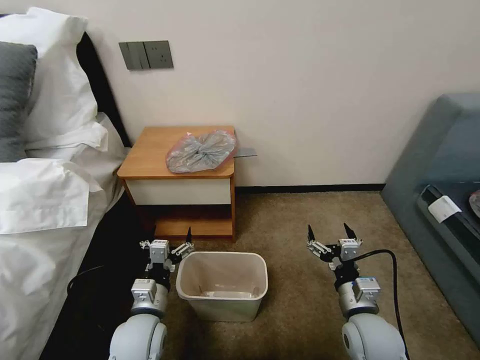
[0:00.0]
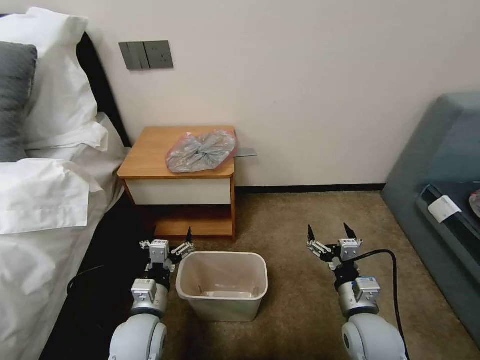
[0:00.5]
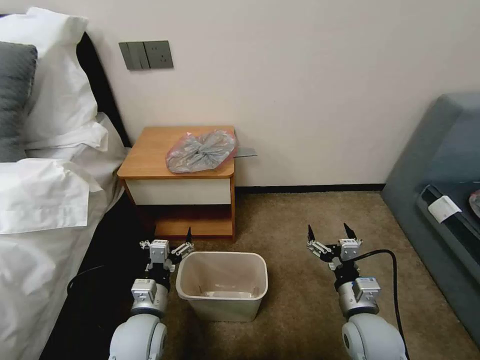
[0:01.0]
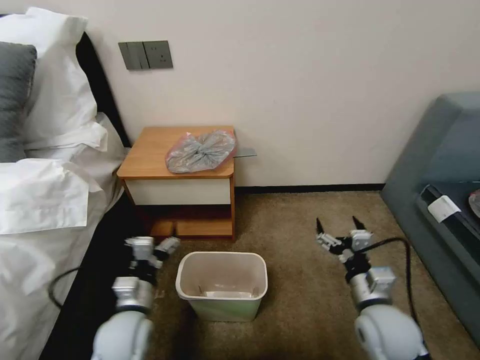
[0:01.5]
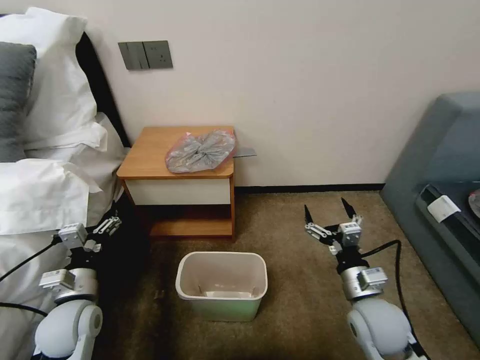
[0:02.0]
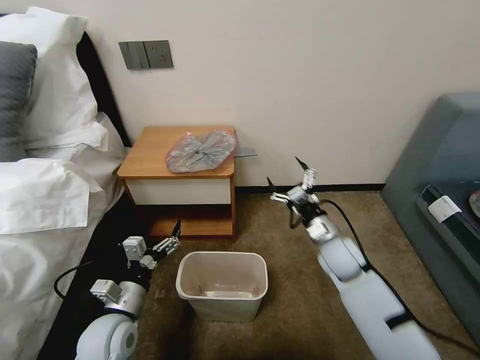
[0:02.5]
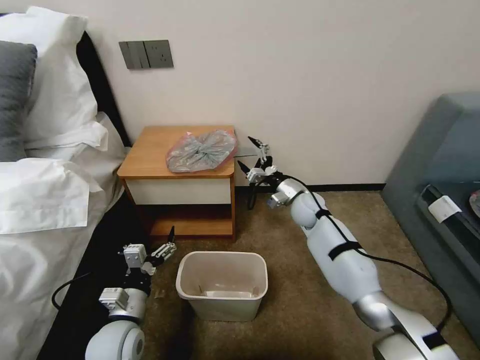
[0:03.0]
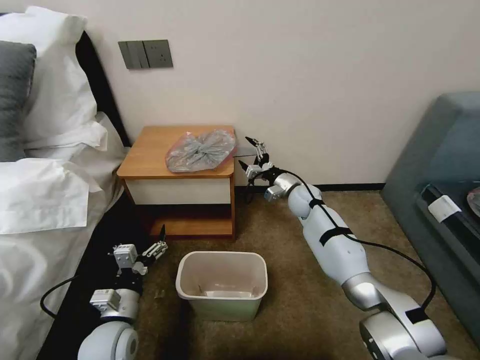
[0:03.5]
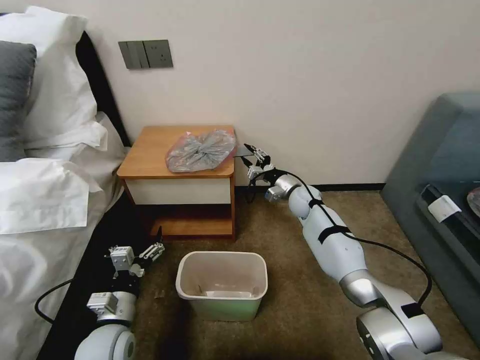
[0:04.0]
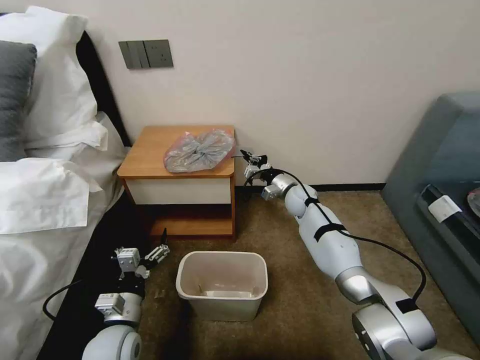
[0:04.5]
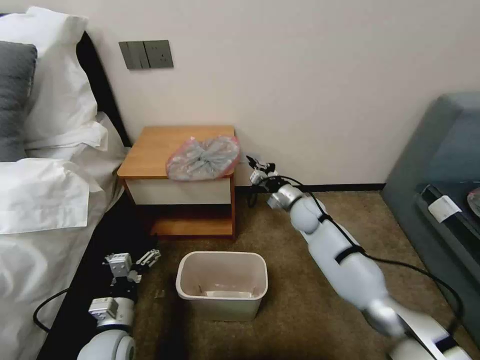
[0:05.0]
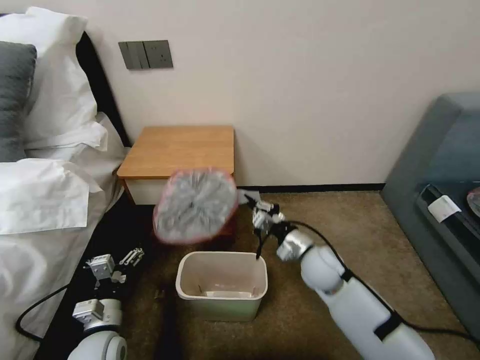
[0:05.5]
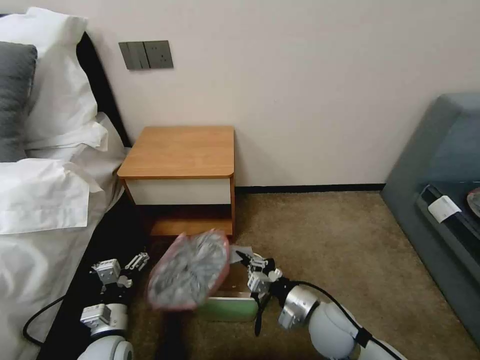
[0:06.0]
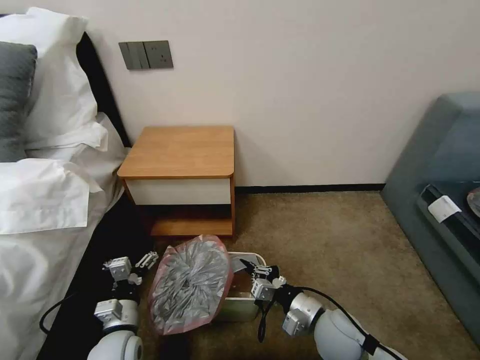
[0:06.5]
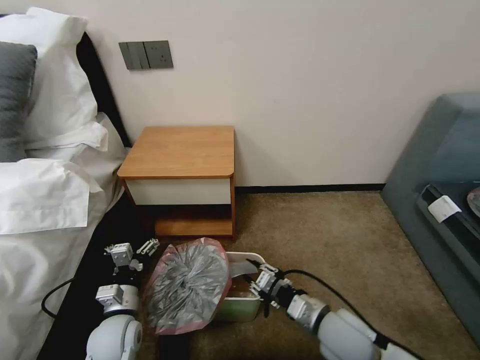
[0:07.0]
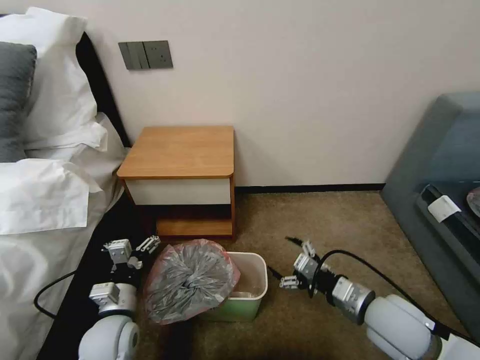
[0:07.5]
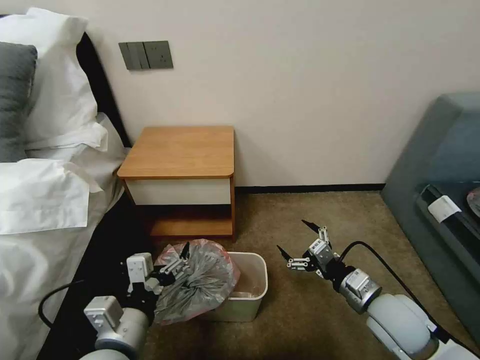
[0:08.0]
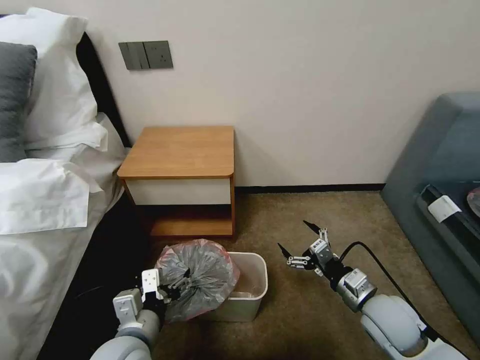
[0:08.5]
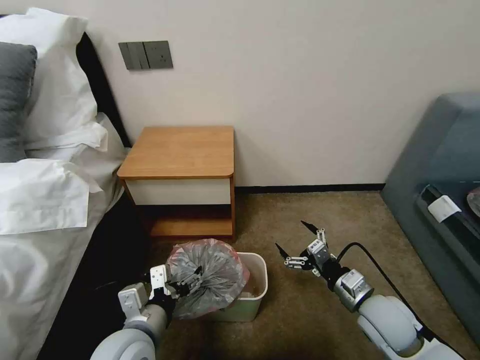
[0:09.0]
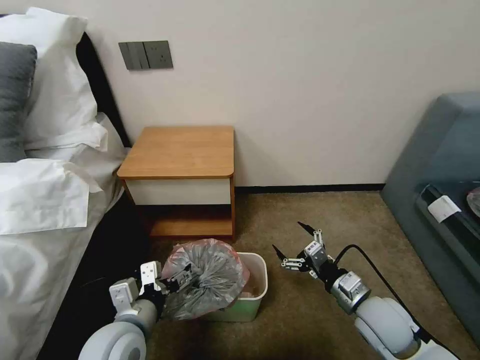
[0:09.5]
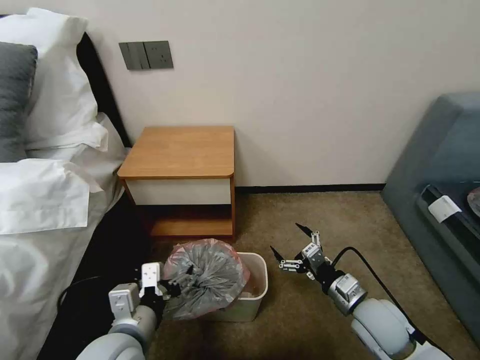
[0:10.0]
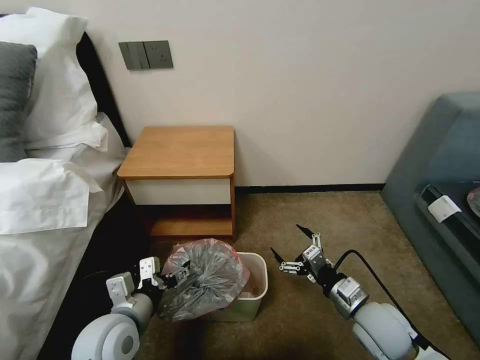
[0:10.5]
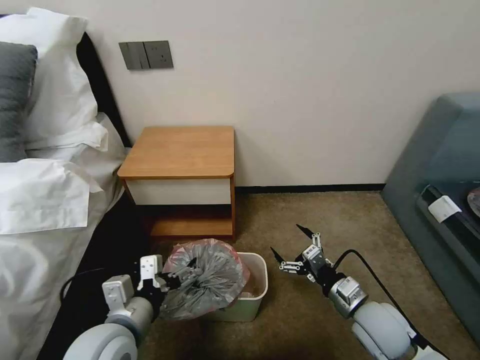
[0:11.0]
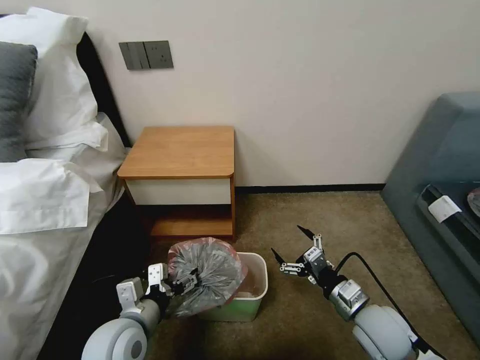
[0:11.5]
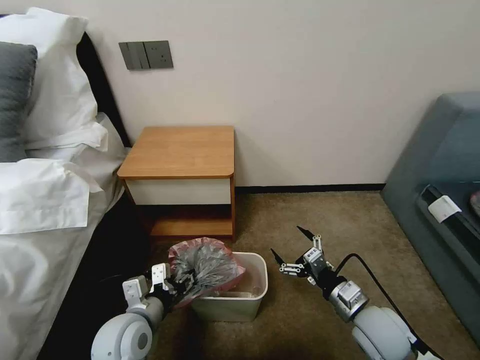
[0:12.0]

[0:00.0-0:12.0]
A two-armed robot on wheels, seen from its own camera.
Task of the whole recording: Pick up the garbage bag from the table and place it over the trash can.
0:02.0 to 0:04.0: The left gripper is displaced to the right by about 5 cm. The right gripper shifts some 35 cm forward, and closes up.
0:04.0 to 0:06.0: The right gripper heads backward, covering approximately 35 cm, and closes up.
0:06.0 to 0:08.0: The right gripper goes roughly 10 cm to the right and upward, and opens. The left gripper goes approximately 15 cm upward and to the right.
0:10.0 to 0:12.0: The left gripper goes approximately 5 cm downward, and closes its fingers.

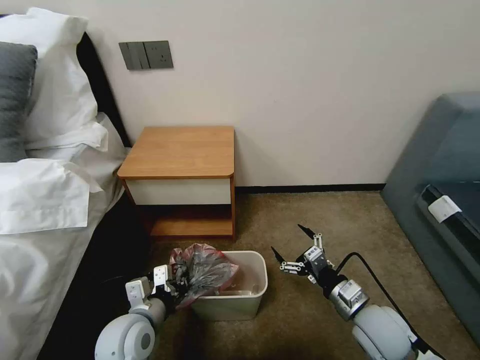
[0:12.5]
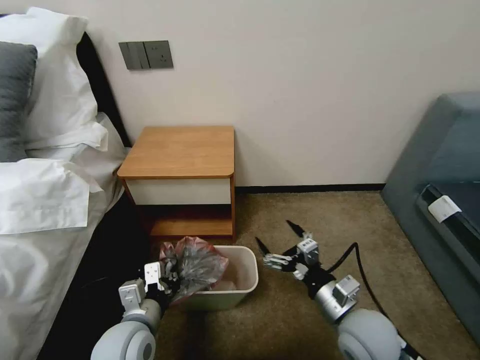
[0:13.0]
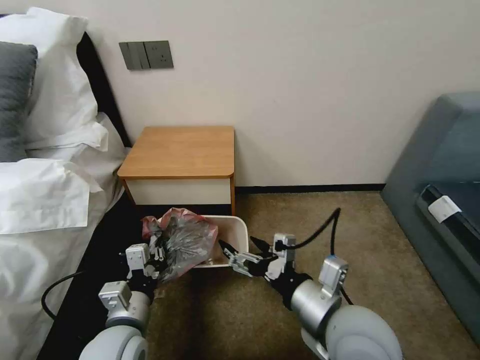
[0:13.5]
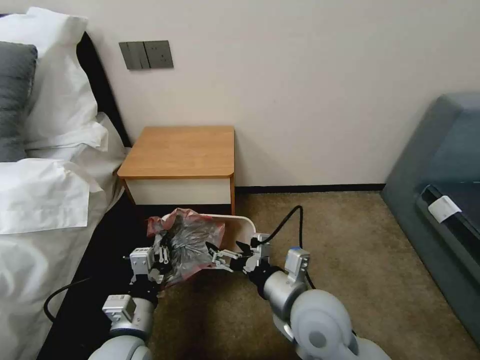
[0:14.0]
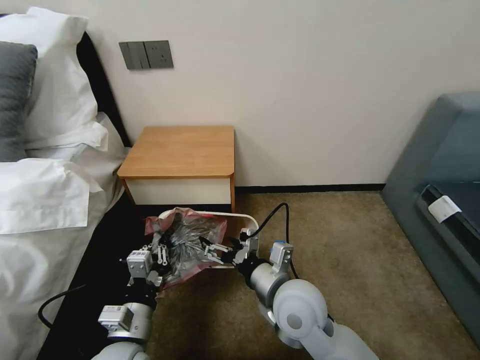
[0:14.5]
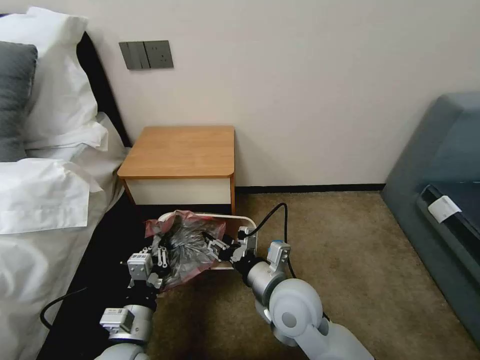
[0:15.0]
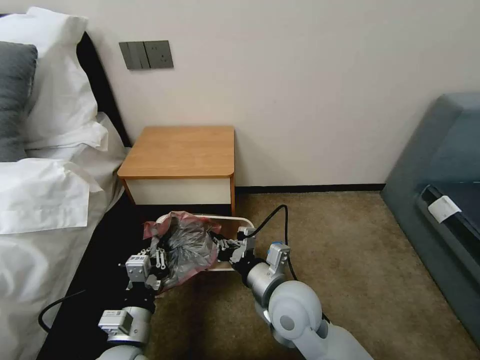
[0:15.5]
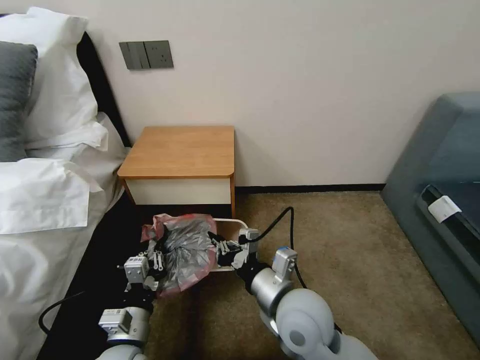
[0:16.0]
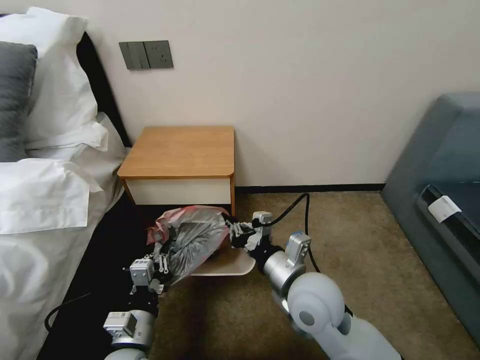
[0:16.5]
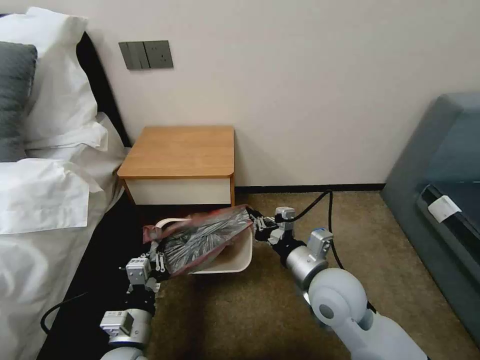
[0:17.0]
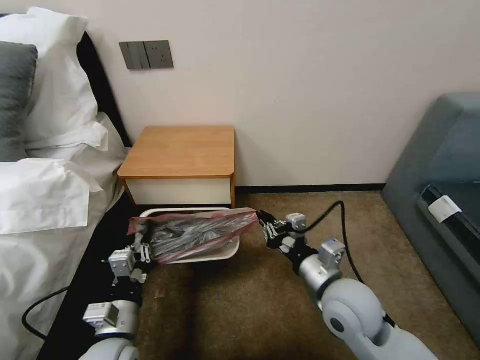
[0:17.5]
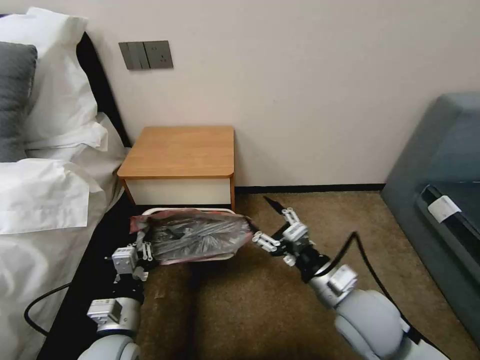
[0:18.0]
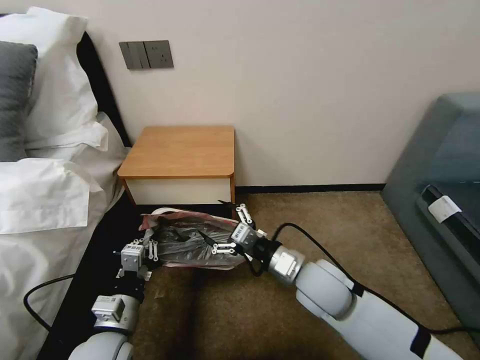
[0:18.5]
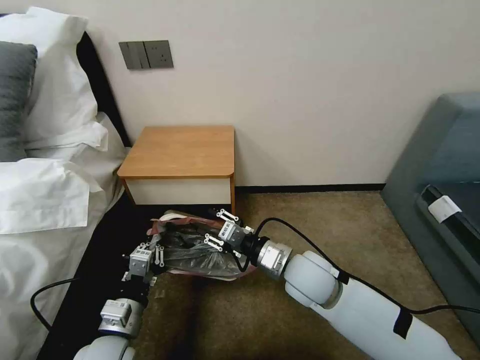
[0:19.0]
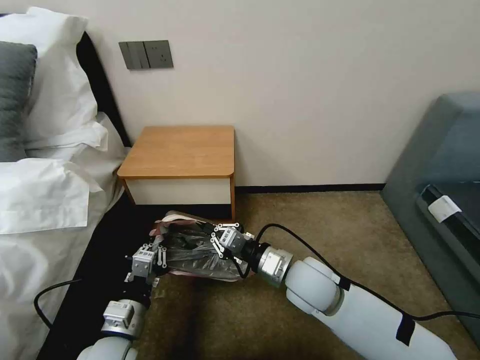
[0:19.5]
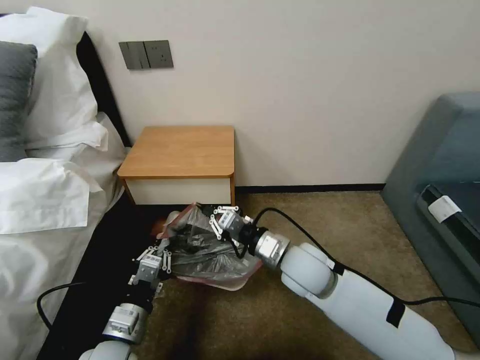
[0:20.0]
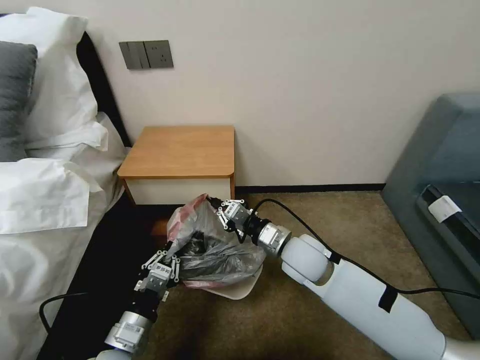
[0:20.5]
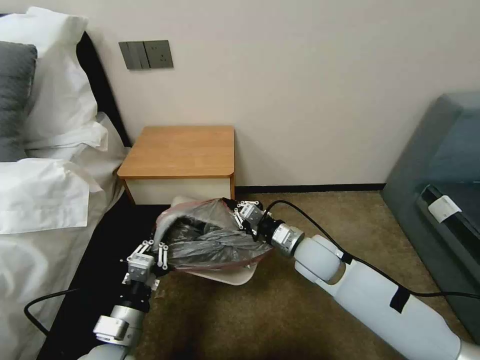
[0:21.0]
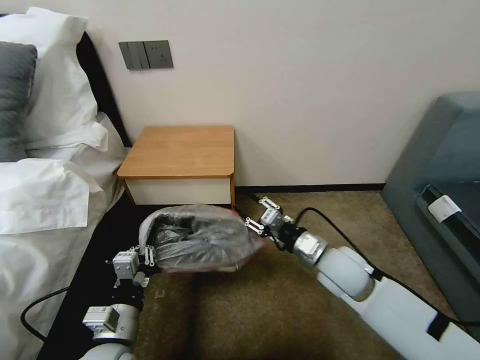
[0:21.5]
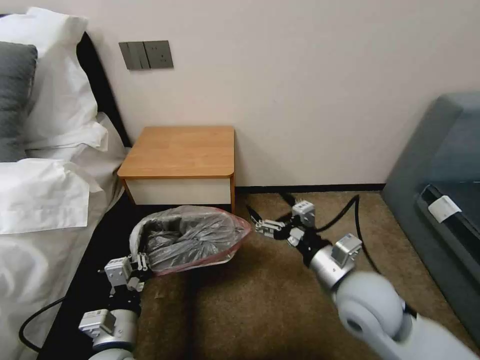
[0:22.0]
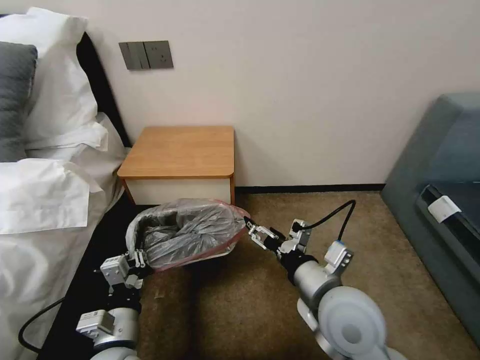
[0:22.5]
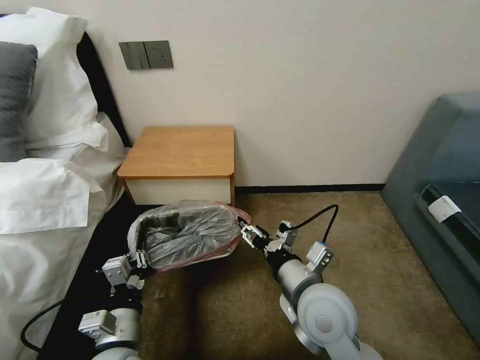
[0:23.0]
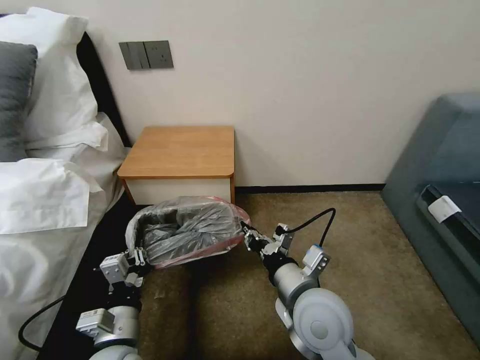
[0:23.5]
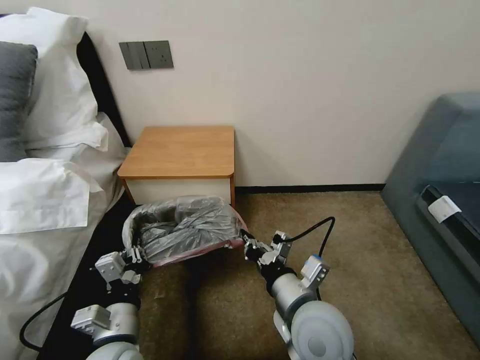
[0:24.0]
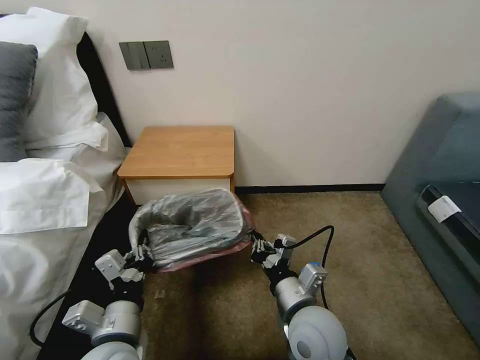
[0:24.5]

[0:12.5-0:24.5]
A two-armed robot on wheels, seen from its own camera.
Task of the whole recording: Pick up the garbage bag from the table and place it over the trash can.
0:12.5 to 0:14.5: The right gripper shifts about 20 cm to the left and upward.
0:14.5 to 0:16.5: The right gripper closes up.
0:16.5 to 0:18.5: The right gripper travels to the right and back again, approximately 10 cm each way, and opens its fingers.
0:18.5 to 0:20.5: The right gripper goes about 5 cm forward, and closes up.
0:20.5 to 0:22.5: The right gripper travels backward and upward by about 15 cm, and opens its fingers.
0:22.5 to 0:24.5: The right gripper is displaced downward by some 5 cm, and closes up.

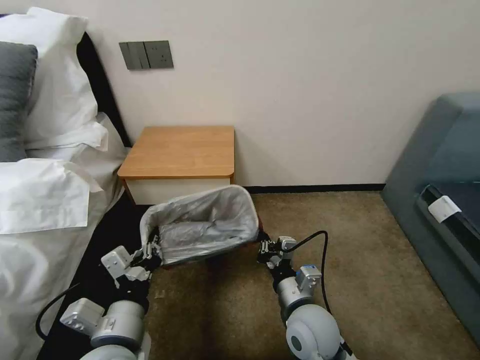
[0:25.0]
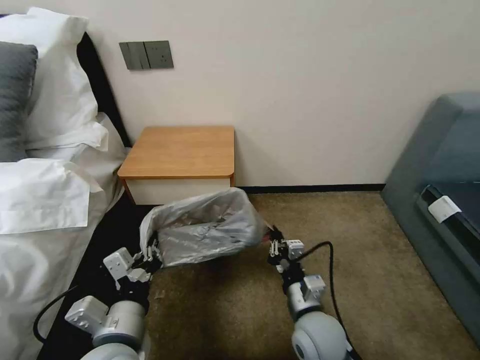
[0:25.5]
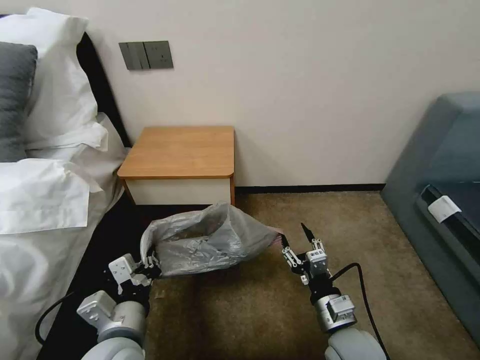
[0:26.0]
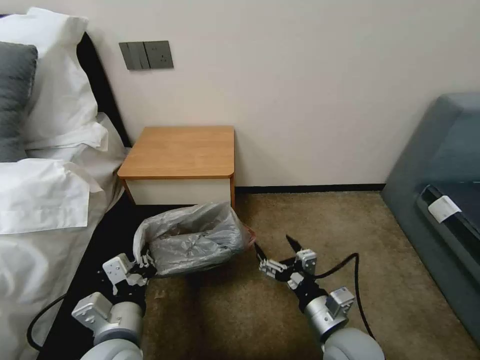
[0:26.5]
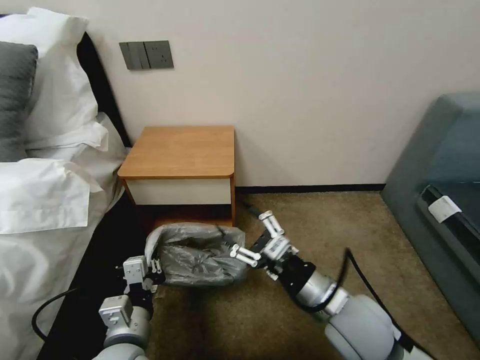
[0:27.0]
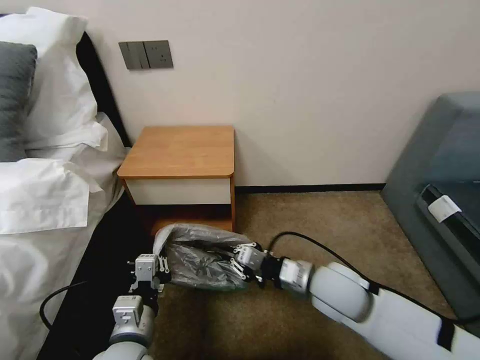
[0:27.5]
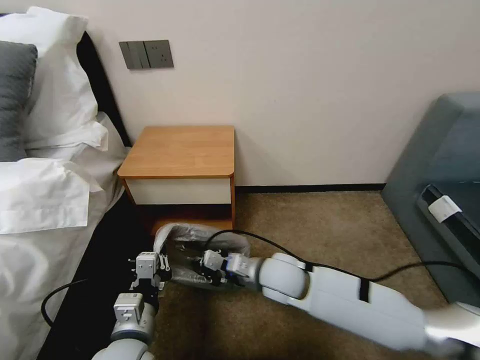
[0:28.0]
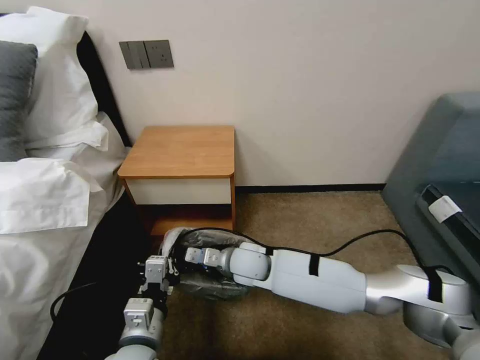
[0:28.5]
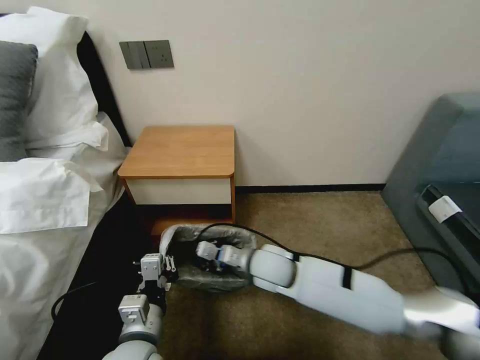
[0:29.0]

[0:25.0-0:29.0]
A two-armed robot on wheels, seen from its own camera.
Task of the whole recording: Pick up the garbage bag from the table and place it over the trash can.
0:25.0 to 0:27.0: The right gripper goes roughly 10 cm upward and to the right, and opens its fingers.
0:27.0 to 0:29.0: The right gripper is displaced to the left, forward and downward by approximately 25 cm, and closes.
